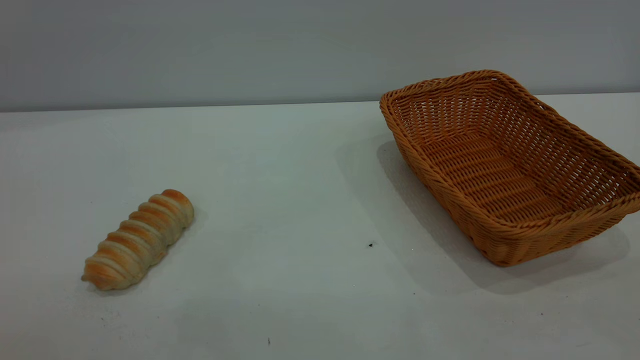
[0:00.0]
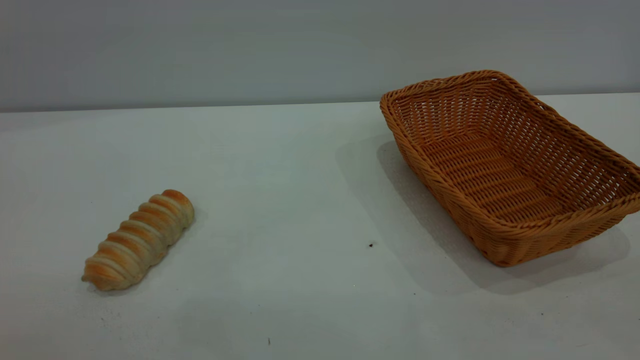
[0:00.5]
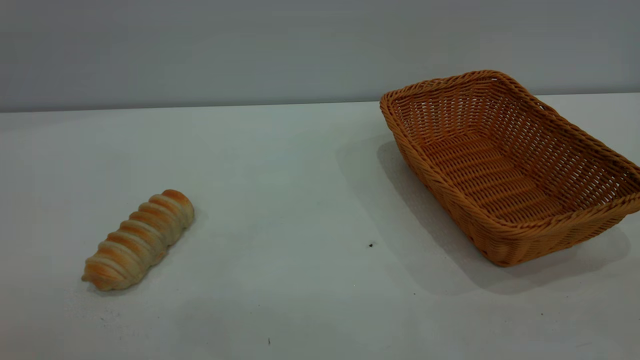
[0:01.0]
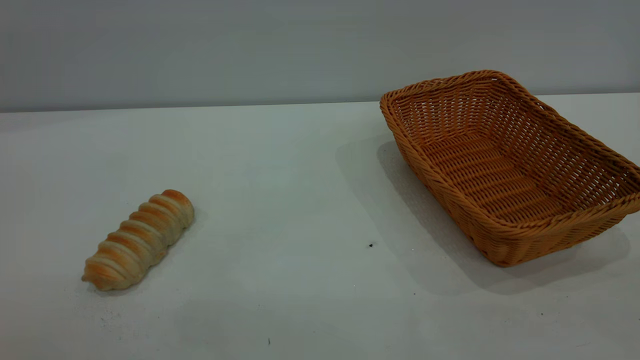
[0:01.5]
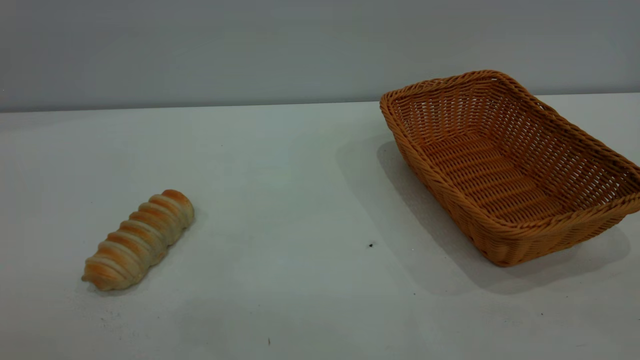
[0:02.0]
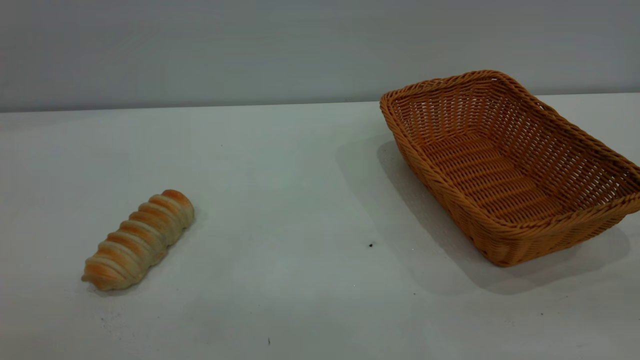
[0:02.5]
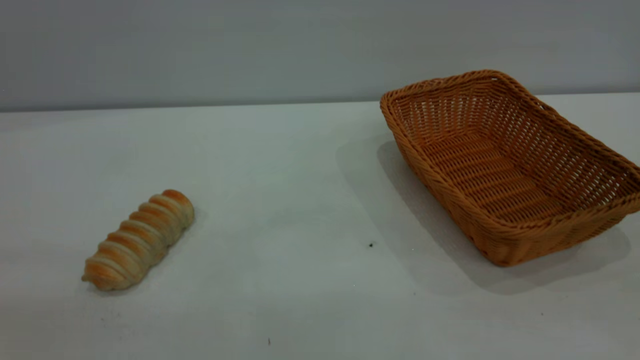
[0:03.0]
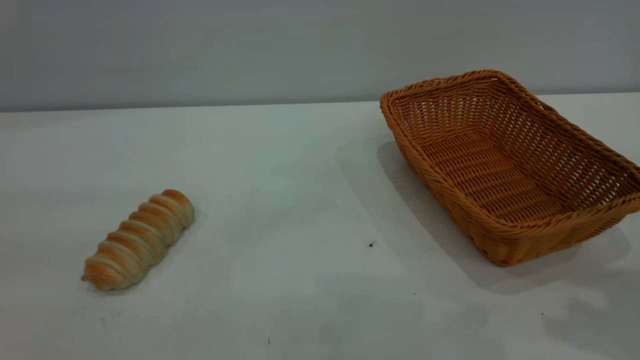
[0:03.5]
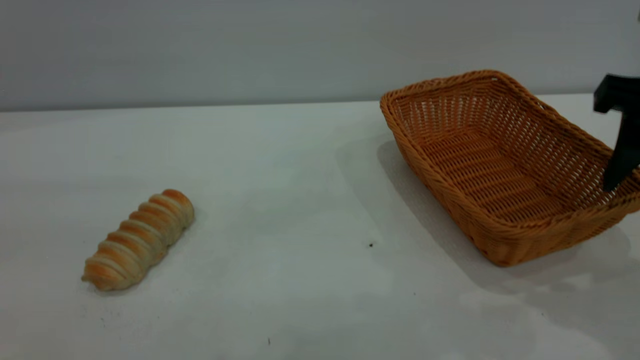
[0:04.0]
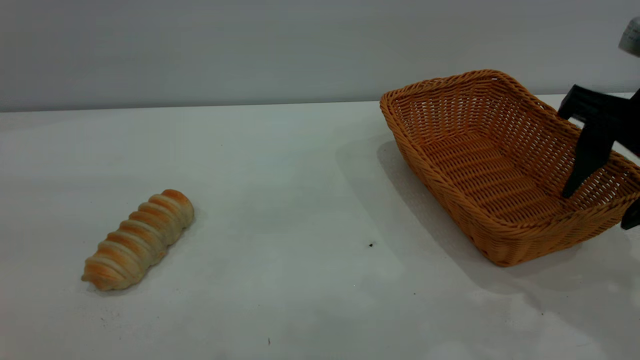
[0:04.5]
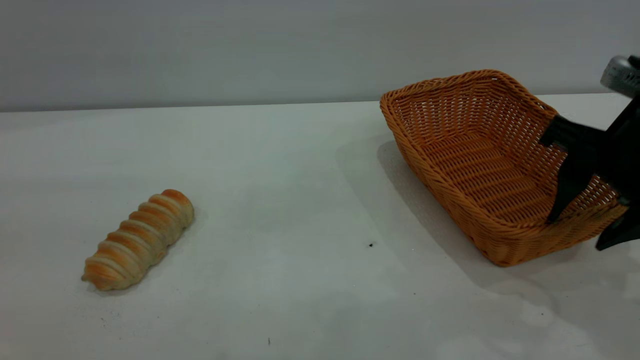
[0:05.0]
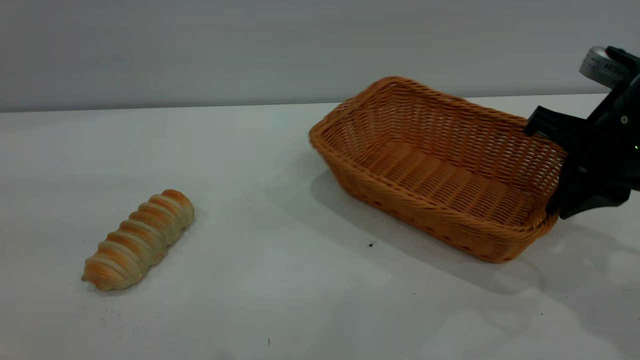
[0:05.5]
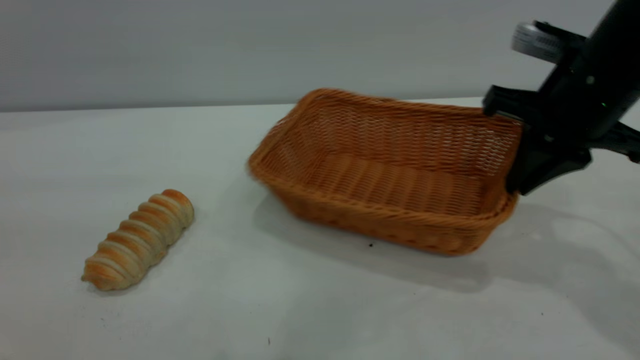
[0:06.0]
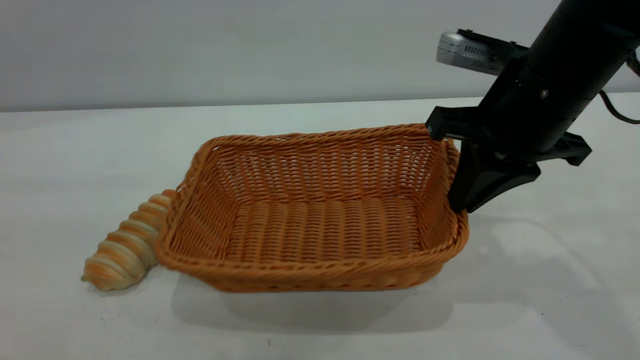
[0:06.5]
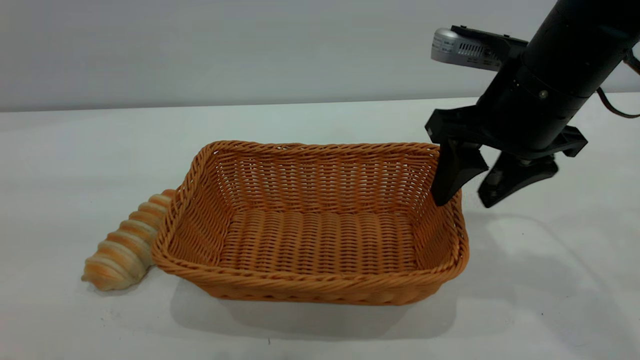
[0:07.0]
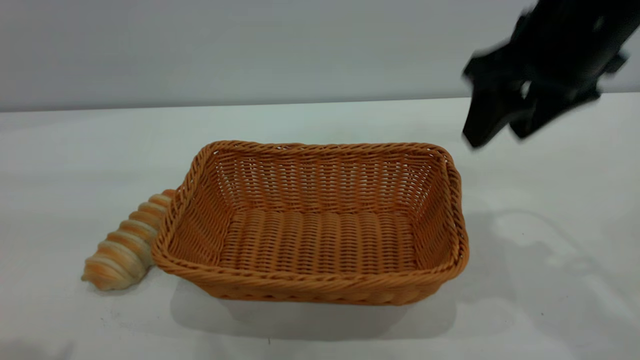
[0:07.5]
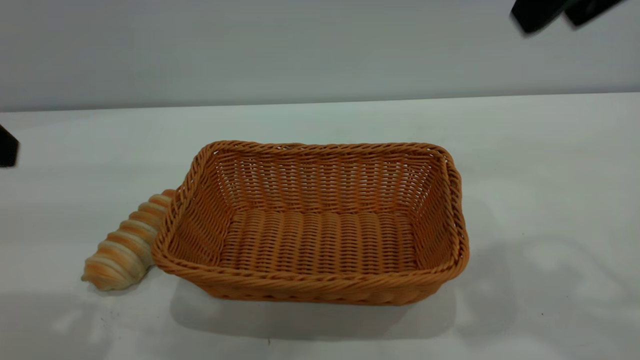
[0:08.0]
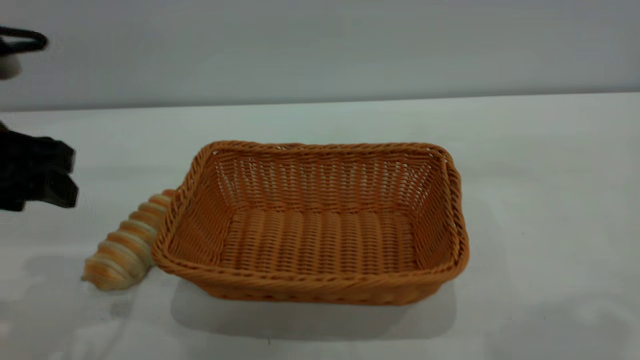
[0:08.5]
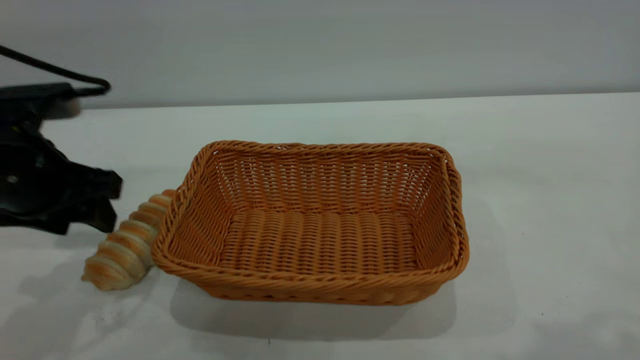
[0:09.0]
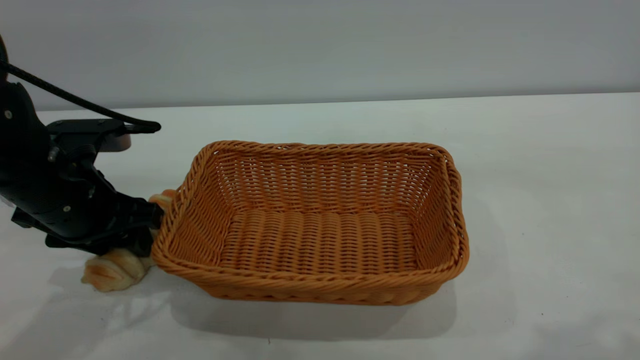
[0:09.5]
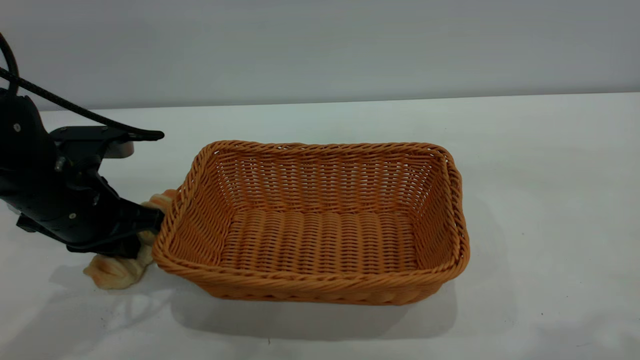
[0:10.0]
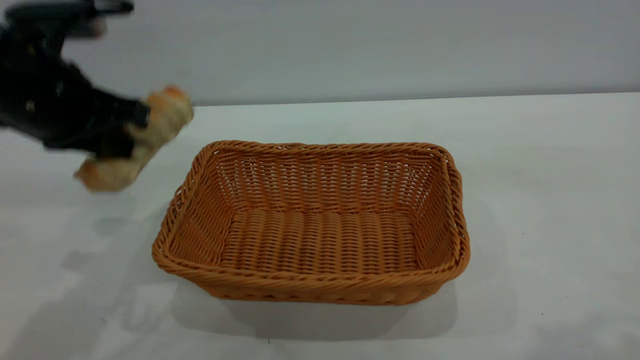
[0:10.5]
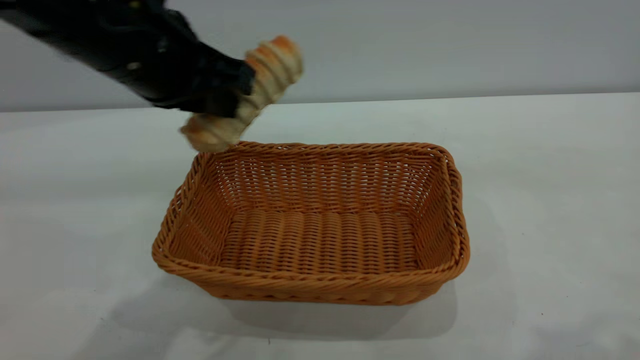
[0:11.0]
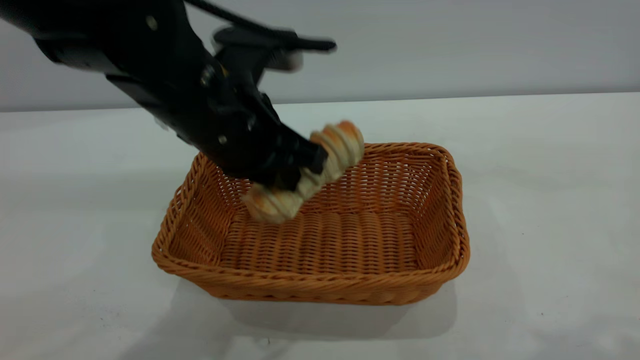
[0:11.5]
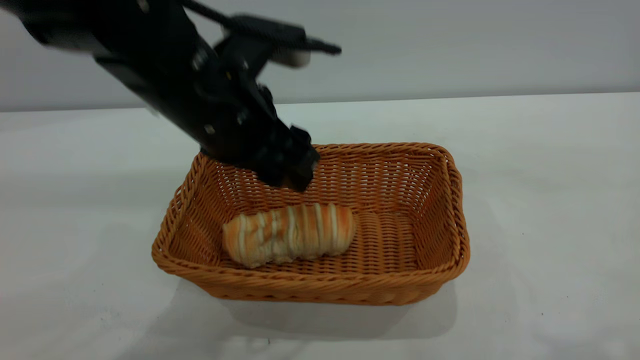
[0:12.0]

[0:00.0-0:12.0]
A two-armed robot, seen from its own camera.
Task of the whole recording: One hand grasps the yellow basket and places it in the middle of the table, while the other hand picks up the long bread and puts it into the yellow basket.
Step, 0:00.0 to 0:07.0: Move the basket to the center of view.
0:02.0 to 0:04.0: The right gripper shifts about 25 cm forward.
0:04.0 to 0:06.0: The right gripper shifts some 10 cm forward, and closes up.
0:06.0 to 0:08.0: The right gripper shifts some 20 cm upward and backward, and opens up. Meanwhile the left gripper is displaced forward and downward by roughly 10 cm.
0:08.0 to 0:10.0: The left gripper is displaced downward and forward by about 20 cm, and closes up. Meanwhile the right gripper travels backward and upward by approximately 10 cm.
0:10.0 to 0:12.0: The left gripper goes roughly 20 cm to the right and upward, and opens.

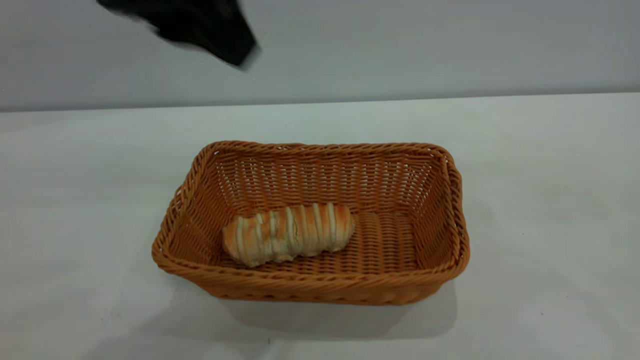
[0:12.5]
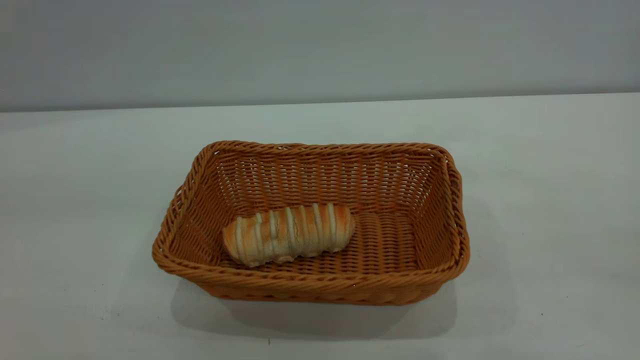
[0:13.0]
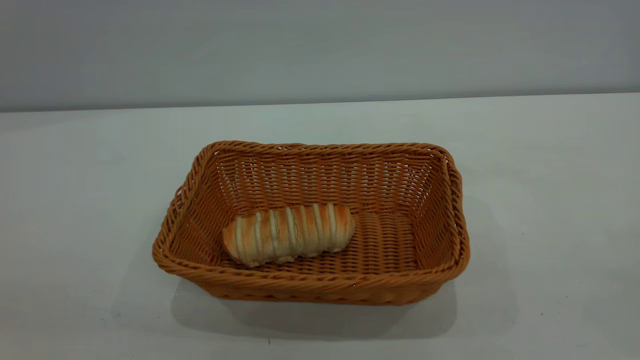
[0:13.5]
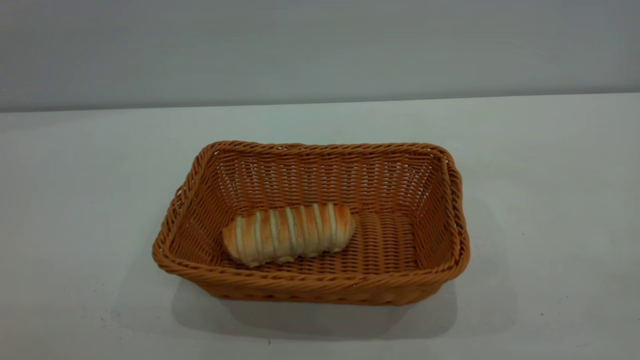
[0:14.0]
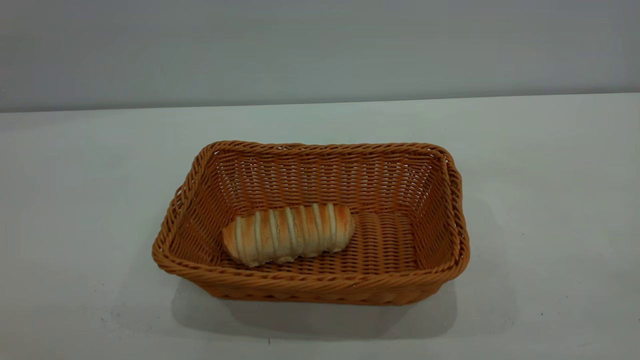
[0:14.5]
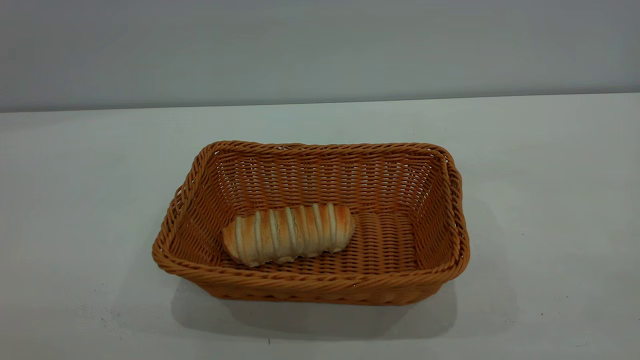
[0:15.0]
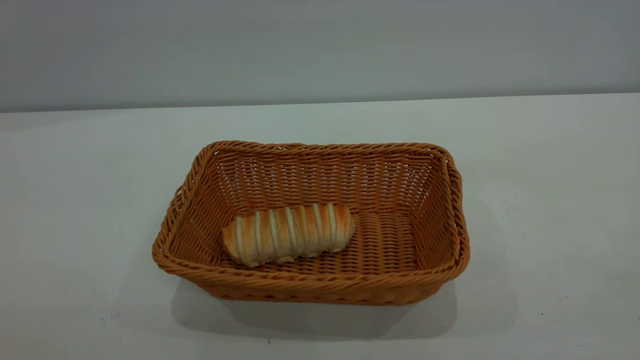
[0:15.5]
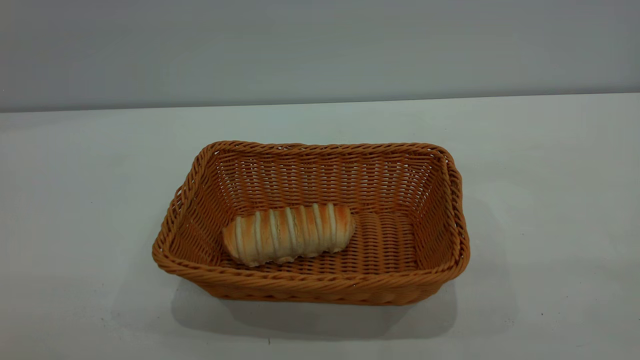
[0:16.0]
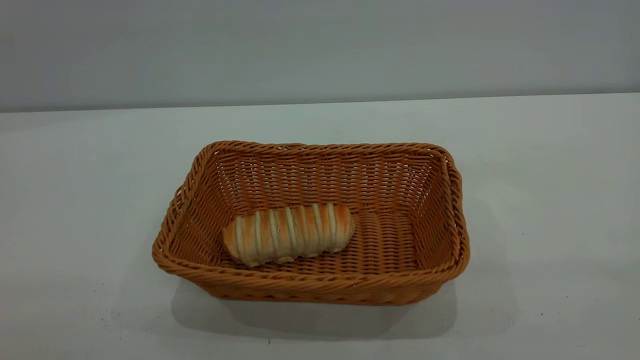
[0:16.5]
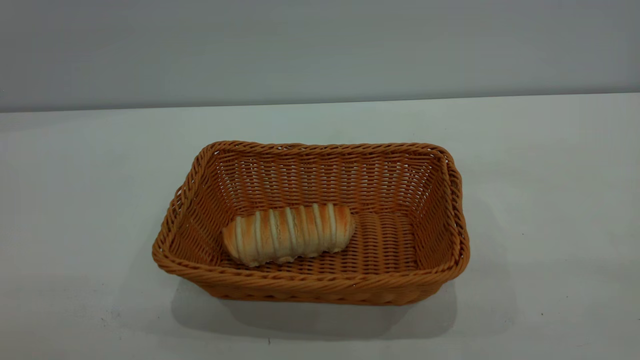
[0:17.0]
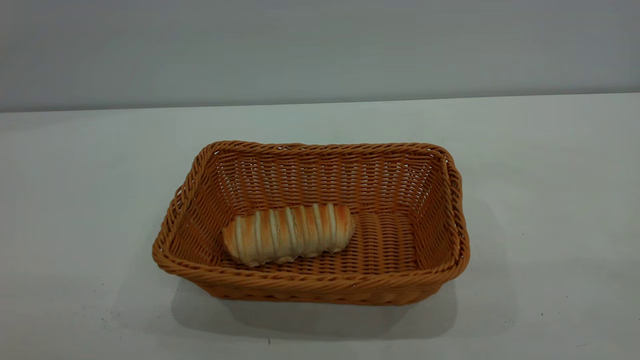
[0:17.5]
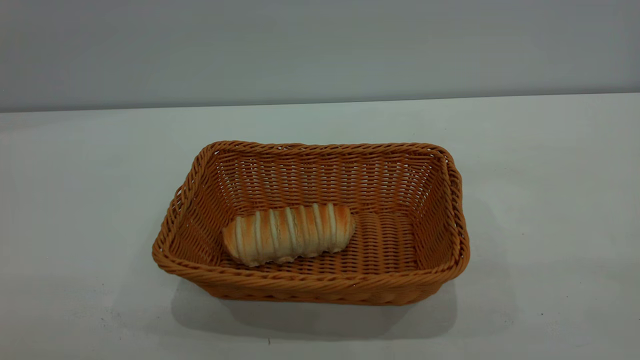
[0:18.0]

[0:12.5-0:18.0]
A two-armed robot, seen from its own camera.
Task of the whole recording: One hand grasps the yellow basket and places it in the middle of the table, while the other hand picks up the long bread and puts it into the yellow basket.
0:12.5 to 0:14.5: The right gripper shifts about 15 cm downward and backward, while the left gripper moves backward and to the left, roughly 30 cm.
0:16.0 to 0:18.0: Both grippers stay about where they are.
